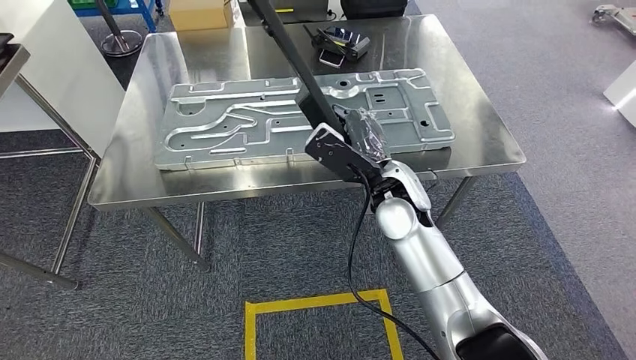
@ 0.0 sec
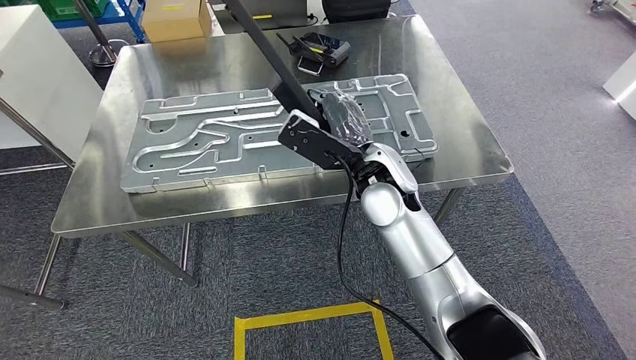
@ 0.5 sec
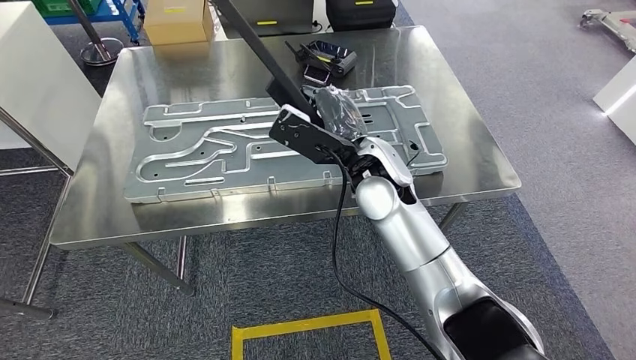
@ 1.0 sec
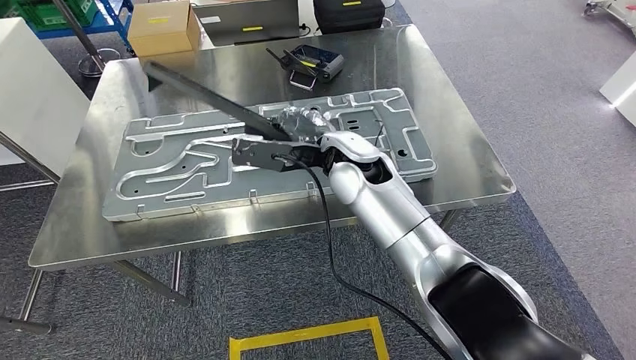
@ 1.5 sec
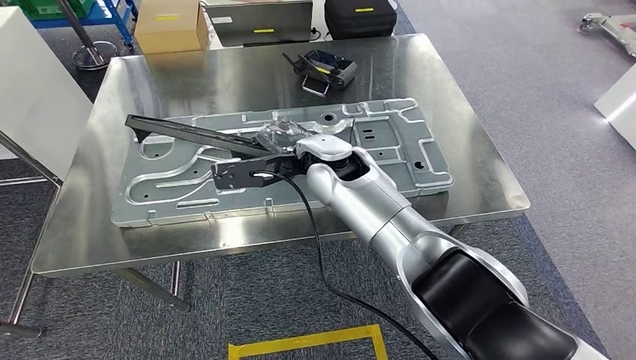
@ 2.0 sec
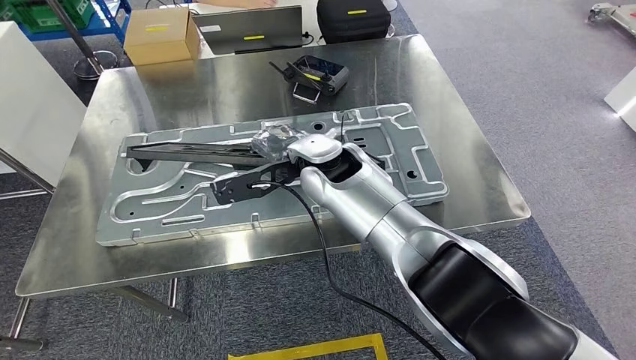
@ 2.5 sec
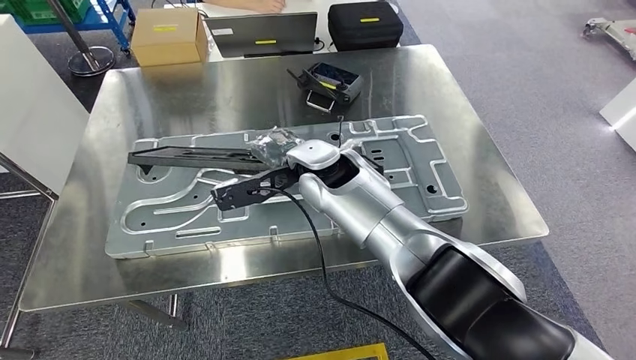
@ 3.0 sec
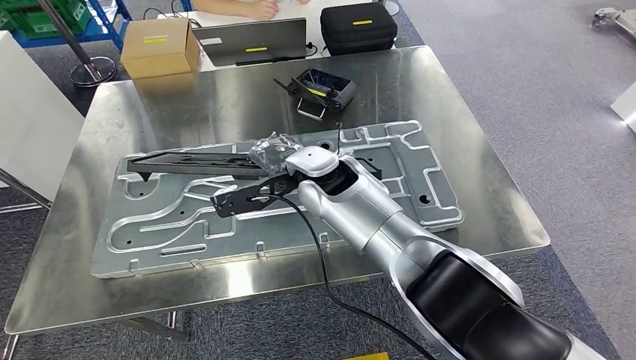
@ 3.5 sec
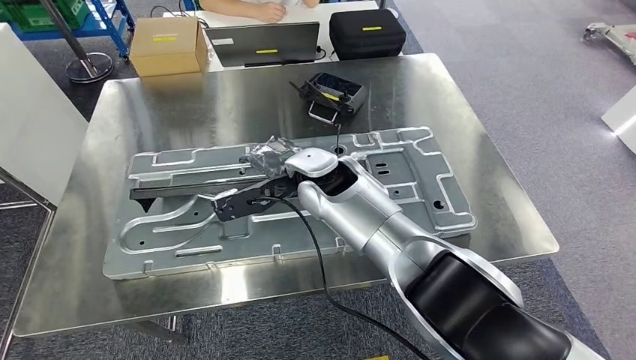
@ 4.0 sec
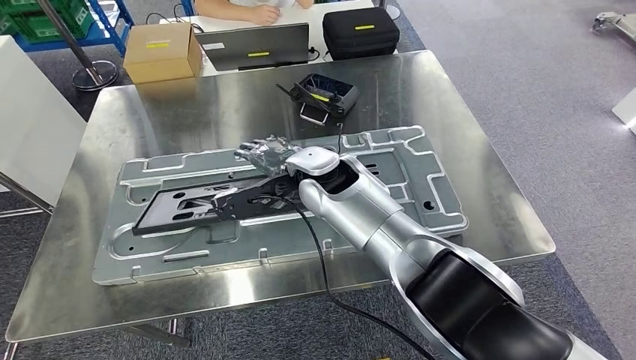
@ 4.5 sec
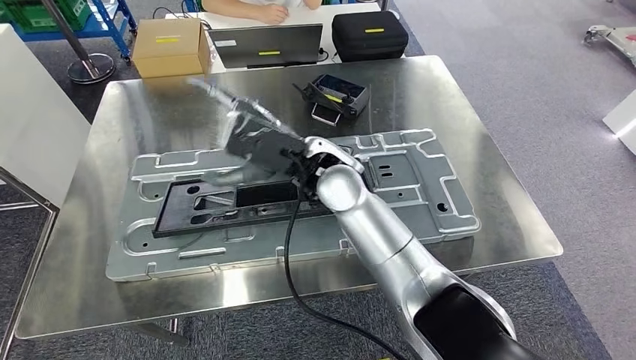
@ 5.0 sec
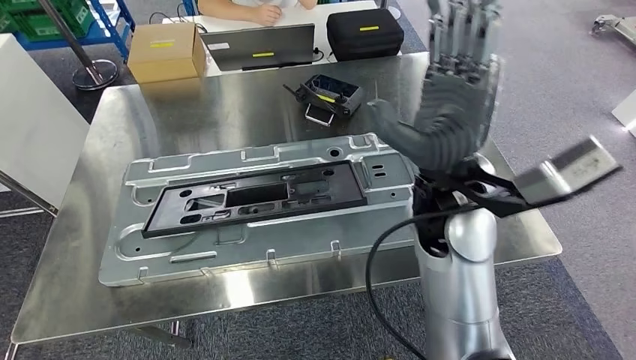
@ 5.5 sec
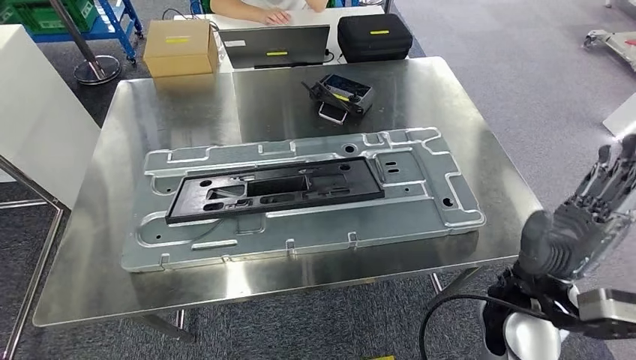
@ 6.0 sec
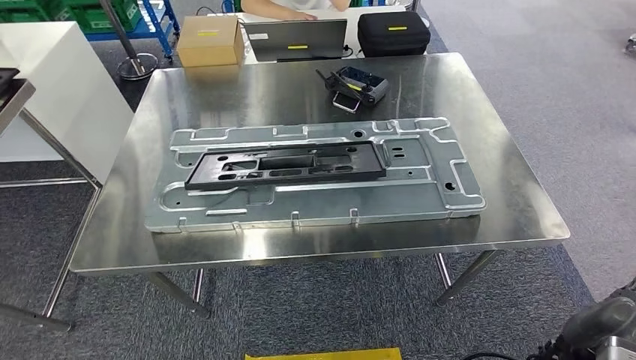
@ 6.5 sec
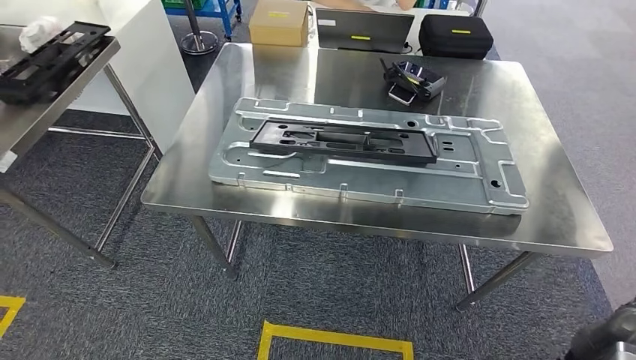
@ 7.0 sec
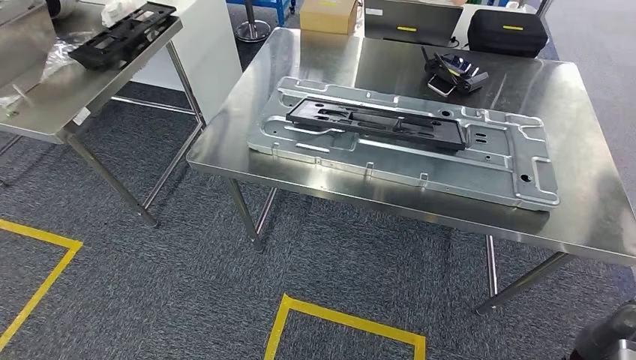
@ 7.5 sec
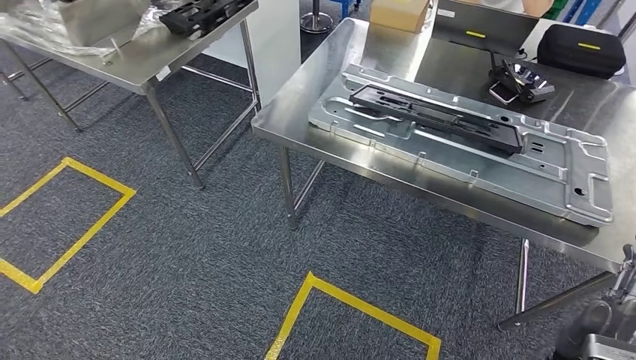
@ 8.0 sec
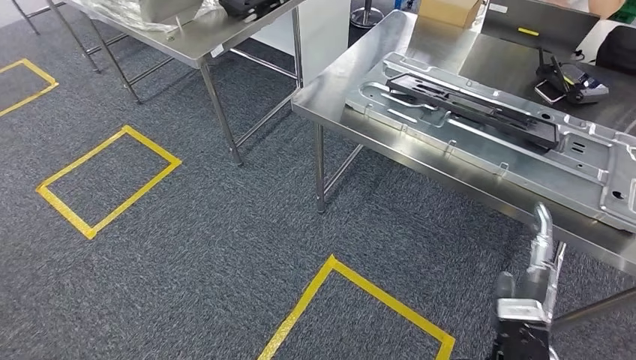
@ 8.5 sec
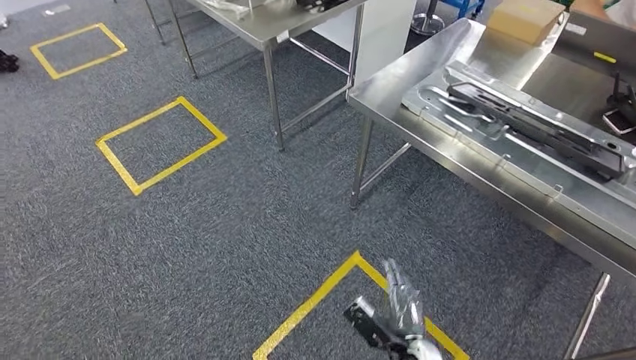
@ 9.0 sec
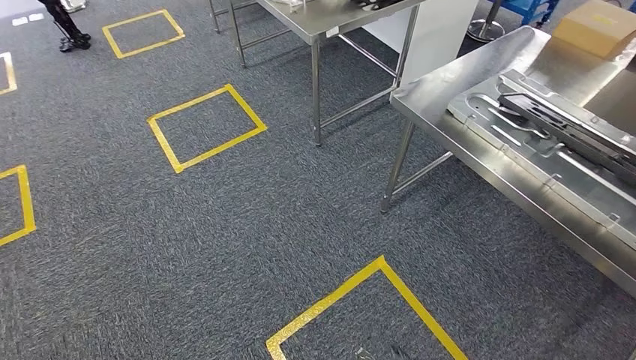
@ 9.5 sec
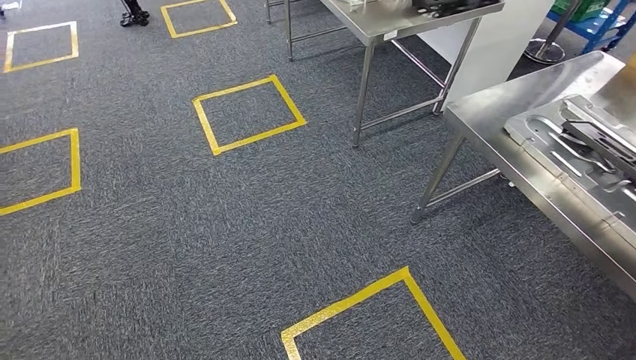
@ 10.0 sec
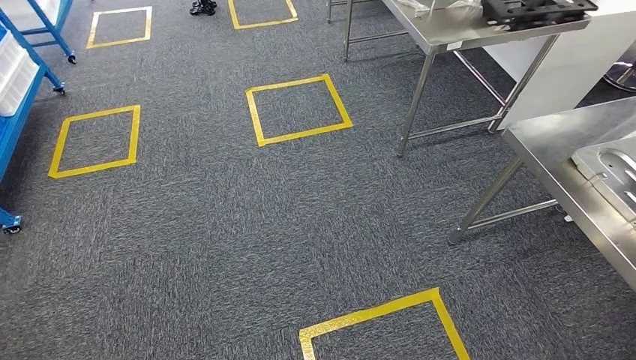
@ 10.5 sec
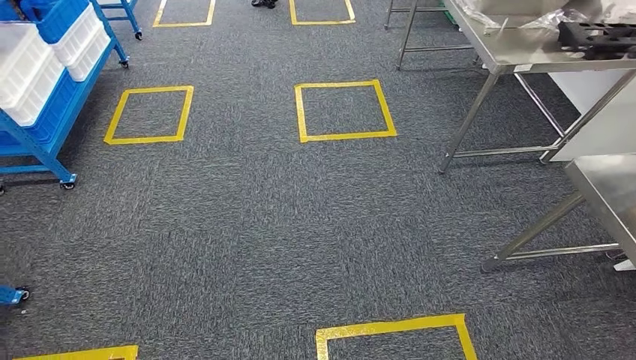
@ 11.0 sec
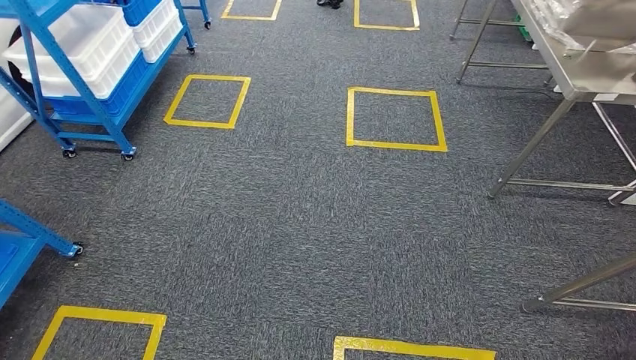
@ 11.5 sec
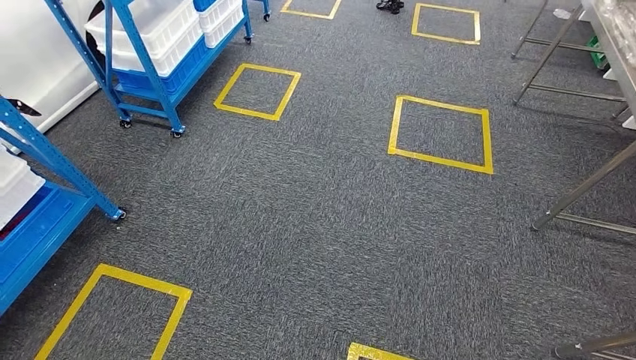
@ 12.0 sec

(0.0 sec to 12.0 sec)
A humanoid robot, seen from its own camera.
Step, 0.0 sec - 7.0 sec: Insert the large material into the corresponding slot on the workbench.

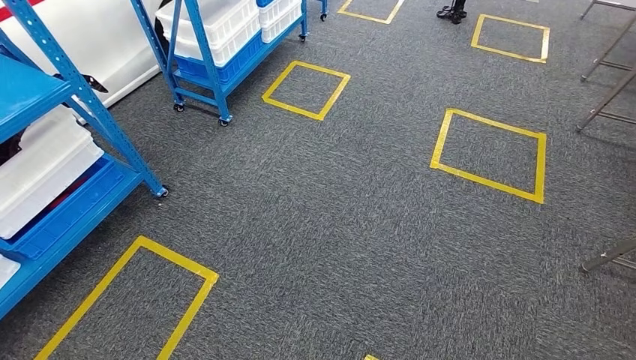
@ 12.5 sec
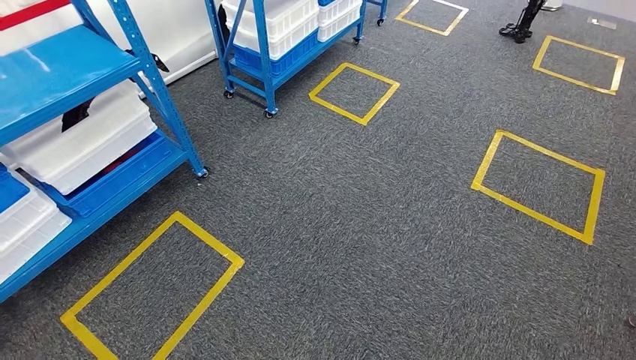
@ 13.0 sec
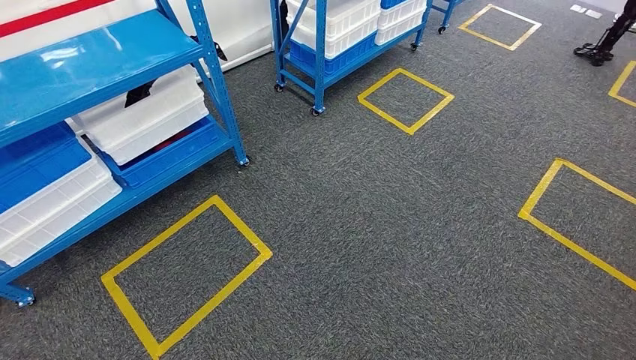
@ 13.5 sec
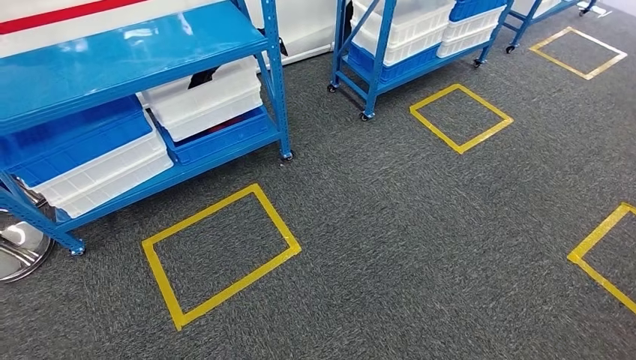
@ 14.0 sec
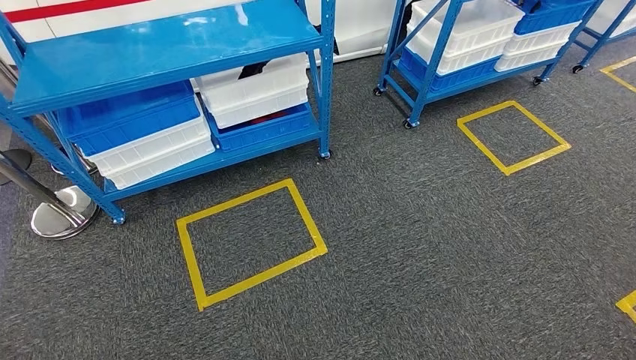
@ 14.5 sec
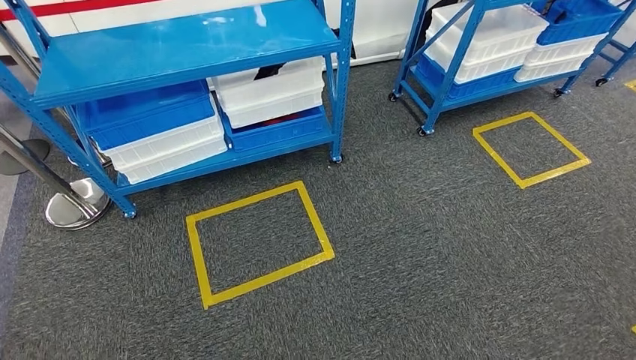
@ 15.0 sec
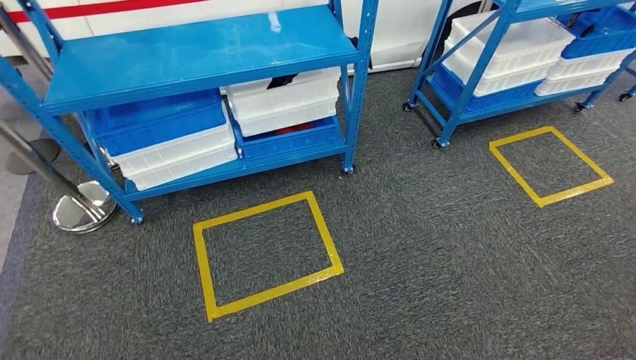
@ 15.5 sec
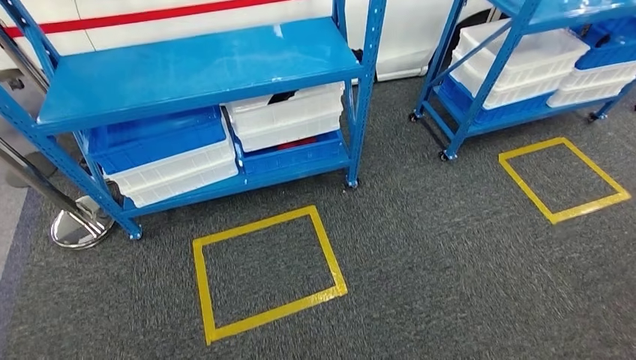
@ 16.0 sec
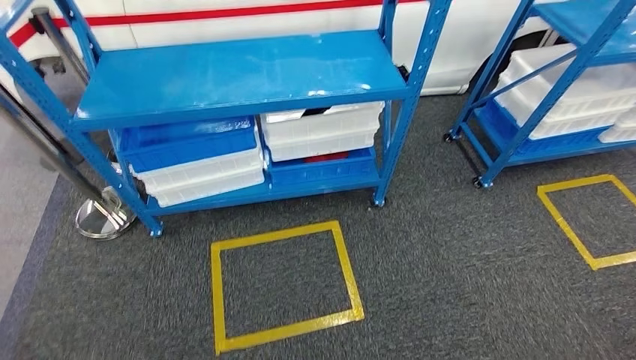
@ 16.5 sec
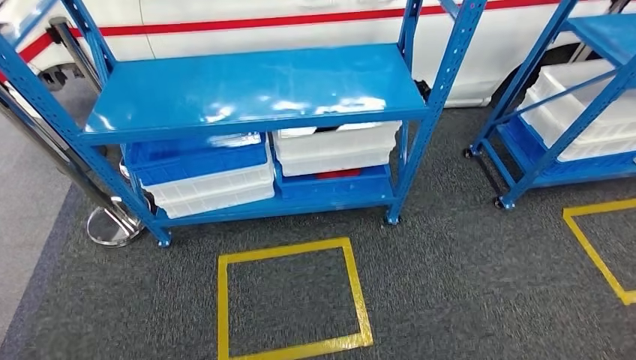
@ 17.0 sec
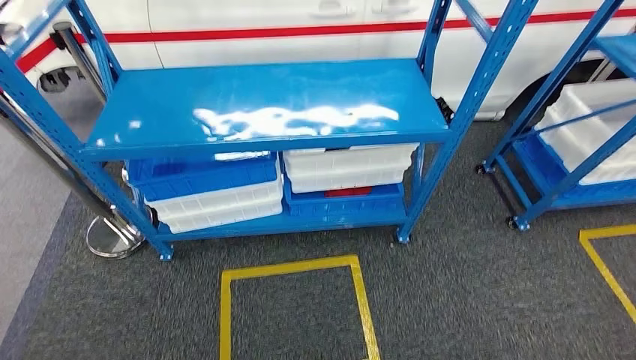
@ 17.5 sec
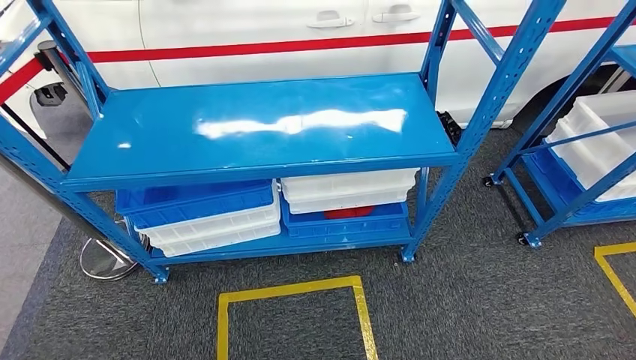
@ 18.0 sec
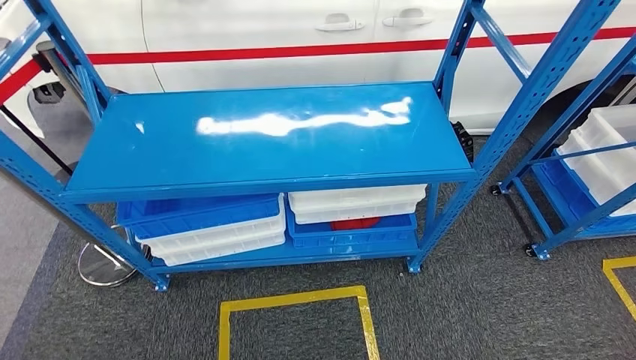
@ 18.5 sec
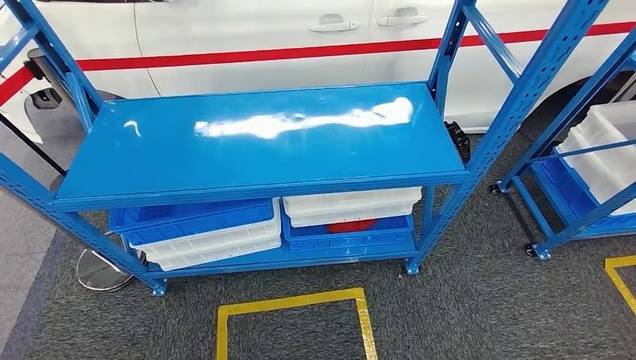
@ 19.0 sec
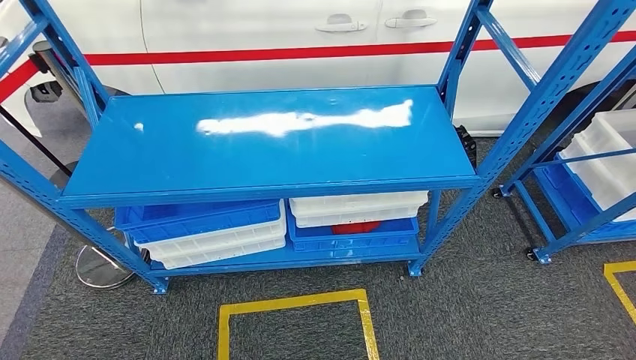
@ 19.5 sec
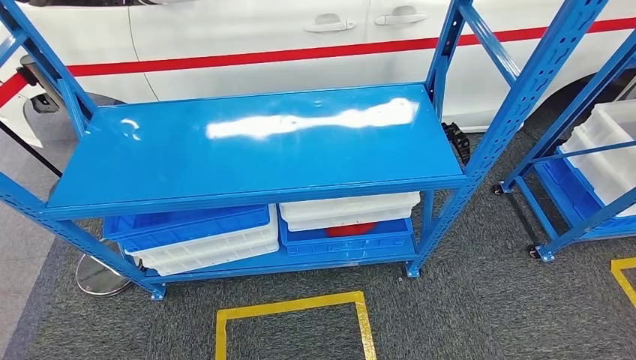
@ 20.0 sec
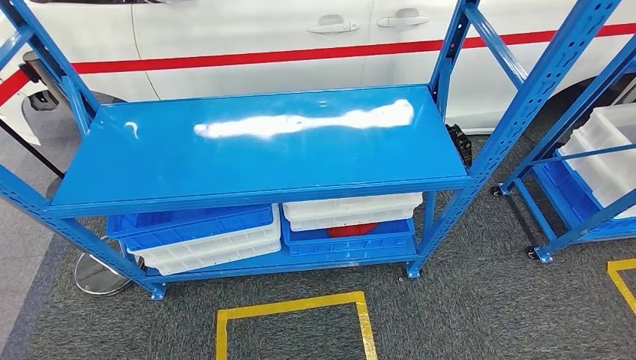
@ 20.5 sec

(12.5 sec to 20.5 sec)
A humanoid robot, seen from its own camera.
Step, 12.5 sec - 20.5 sec: Move to the initial position of the shelf.
